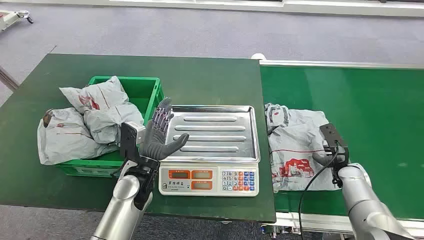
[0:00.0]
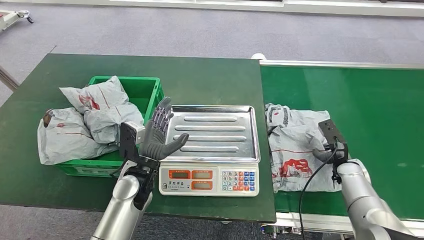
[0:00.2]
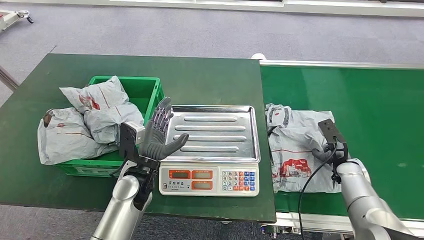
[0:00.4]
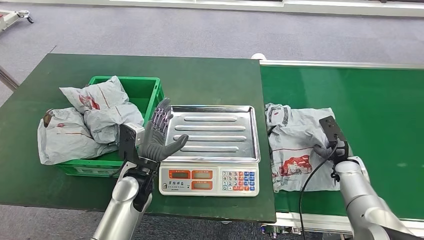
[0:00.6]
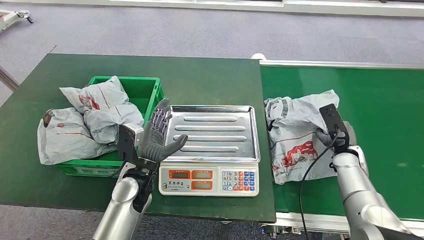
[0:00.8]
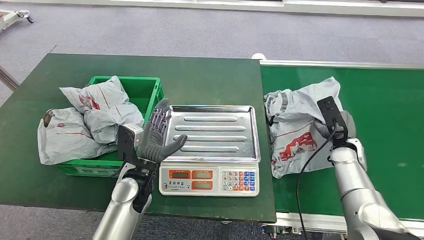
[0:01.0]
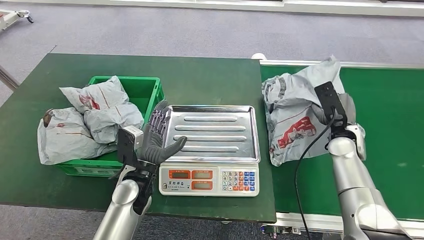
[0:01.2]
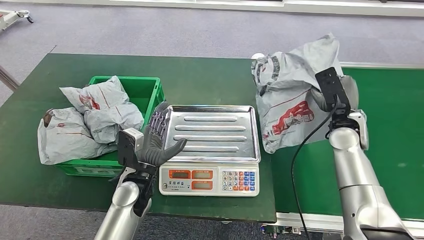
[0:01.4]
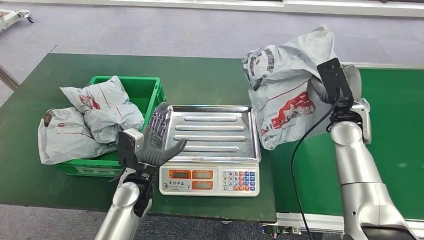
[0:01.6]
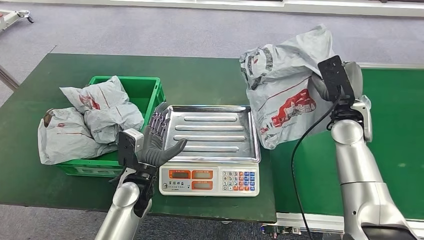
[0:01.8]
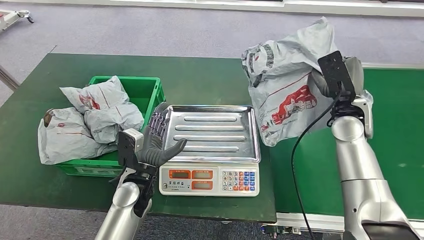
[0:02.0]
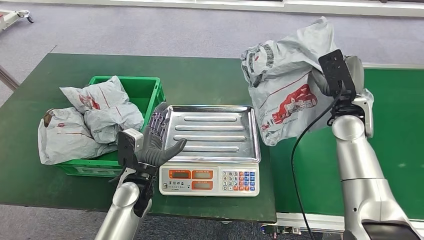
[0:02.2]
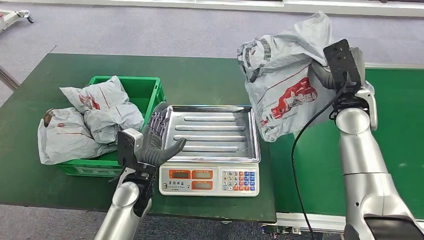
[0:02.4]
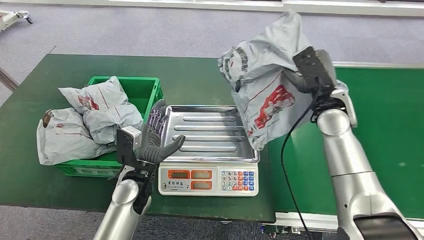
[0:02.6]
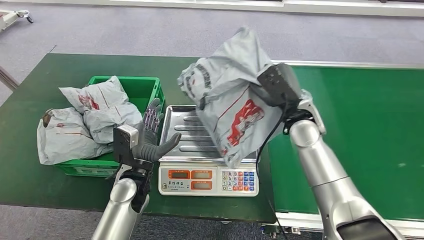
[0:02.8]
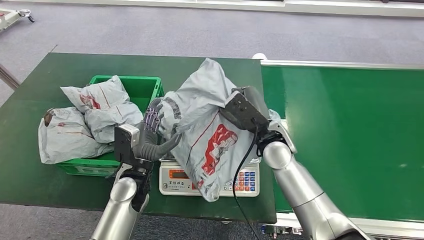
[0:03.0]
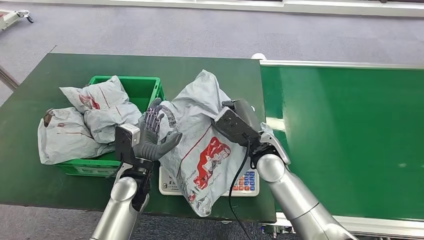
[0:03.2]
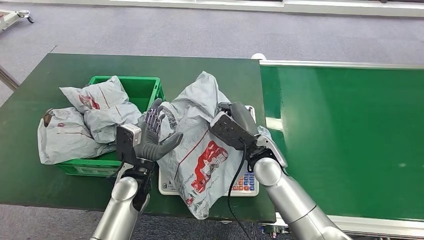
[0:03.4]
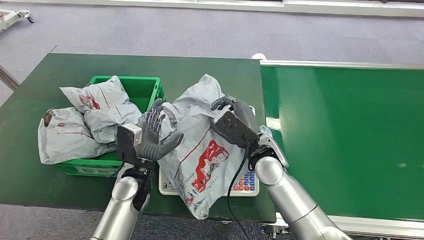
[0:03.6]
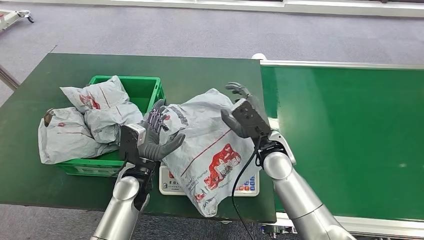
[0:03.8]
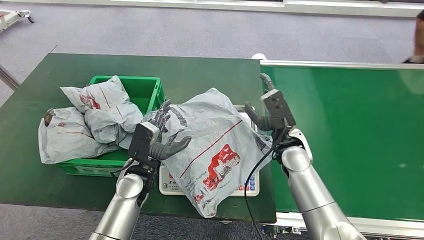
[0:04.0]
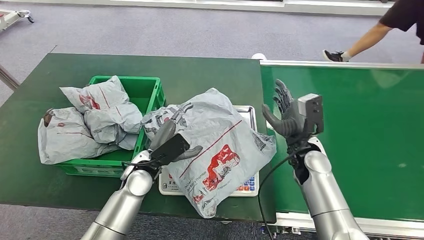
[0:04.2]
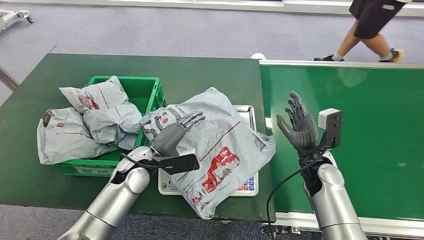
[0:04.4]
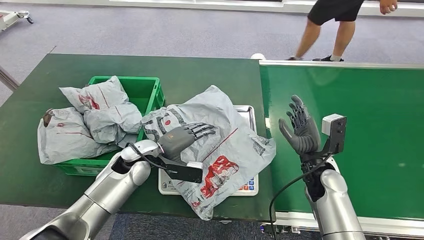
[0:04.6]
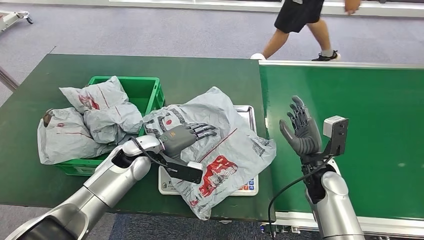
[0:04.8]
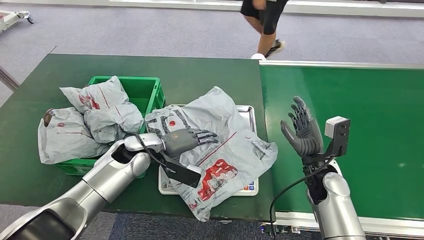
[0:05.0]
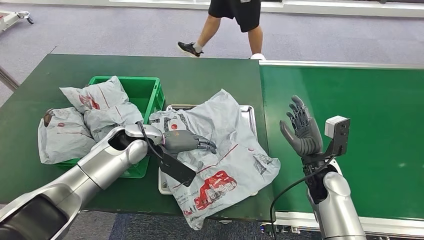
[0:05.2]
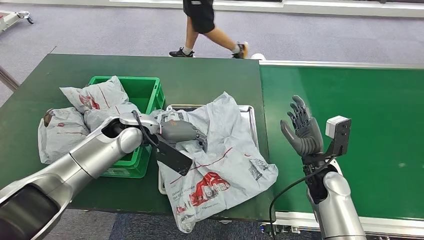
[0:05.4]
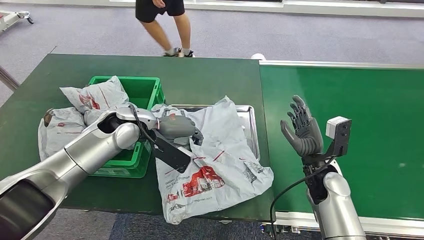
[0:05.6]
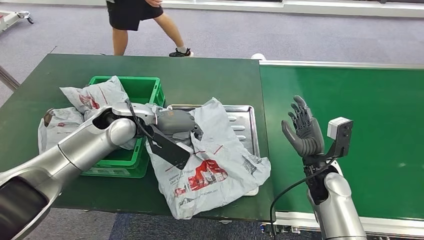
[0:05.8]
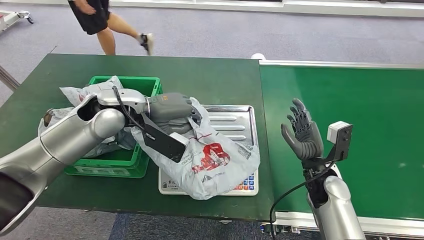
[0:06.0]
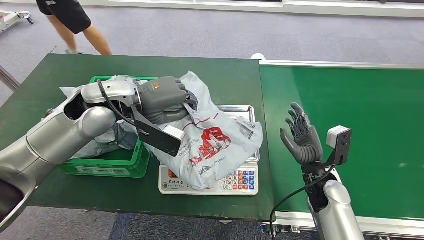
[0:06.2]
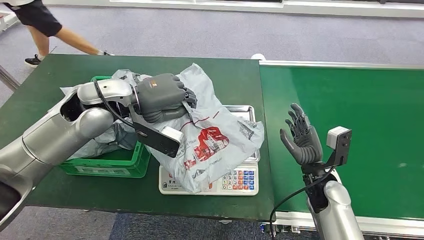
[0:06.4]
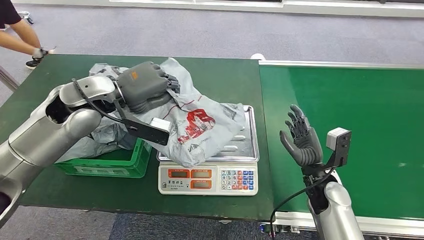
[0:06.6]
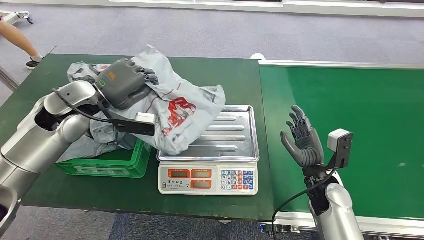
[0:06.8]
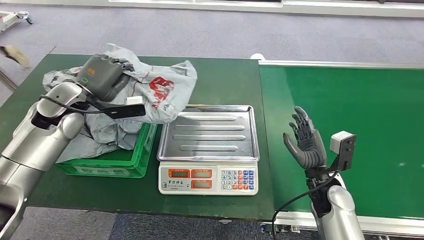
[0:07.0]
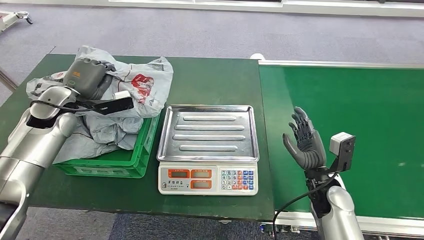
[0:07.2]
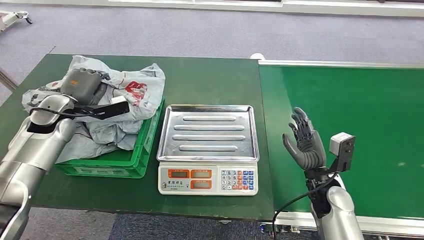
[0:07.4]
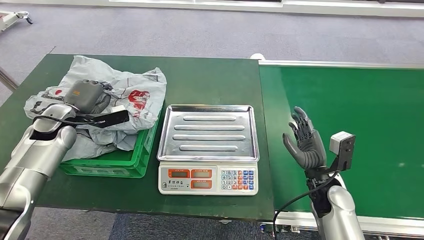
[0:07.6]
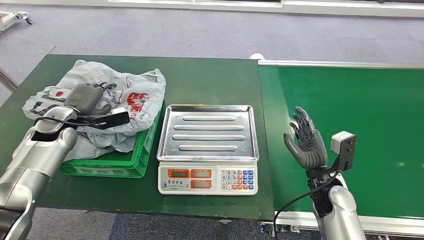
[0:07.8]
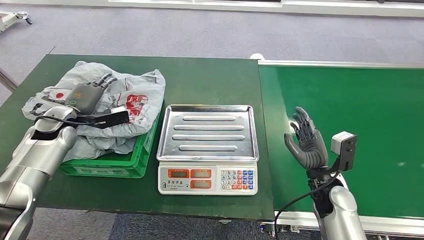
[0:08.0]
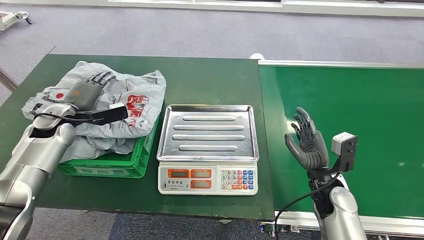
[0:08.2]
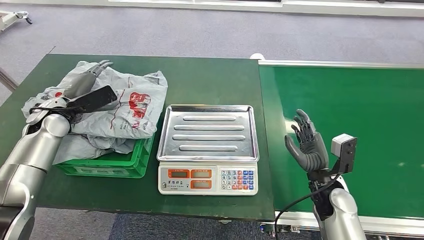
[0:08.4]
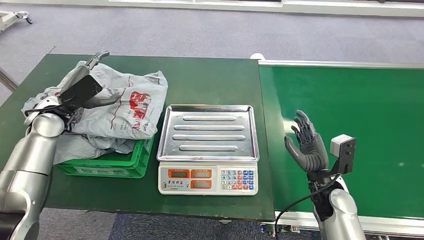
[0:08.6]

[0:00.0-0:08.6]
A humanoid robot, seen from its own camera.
Task of the whole recording: Weigh the package on the weighing device and place it in the left basket.
Step, 0:00.0 to 0:01.2: Pick up the package from the conveyor belt.
Step, 0:01.4 to 0:04.2: Place the package onto the inbound machine.
Step, 0:04.4 to 0:06.6: Pick up the package from the inbound machine.
Step, 0:06.8 to 0:08.6: Place the package into the parcel locker.

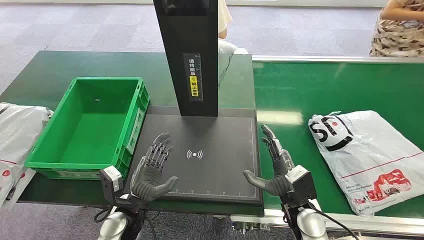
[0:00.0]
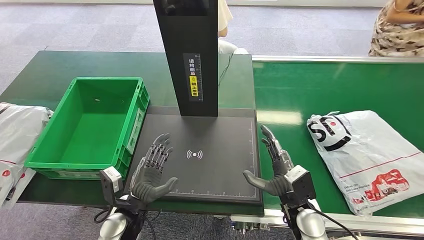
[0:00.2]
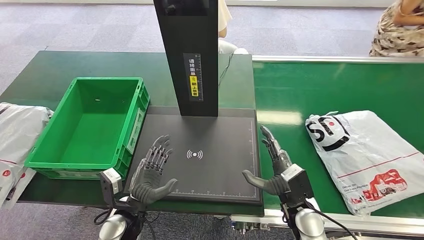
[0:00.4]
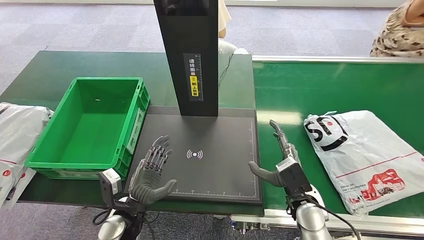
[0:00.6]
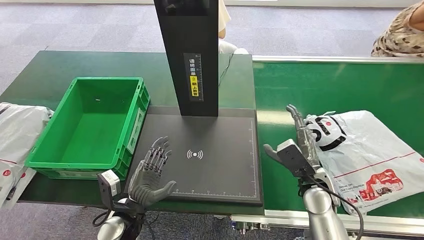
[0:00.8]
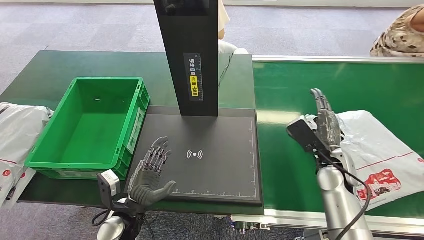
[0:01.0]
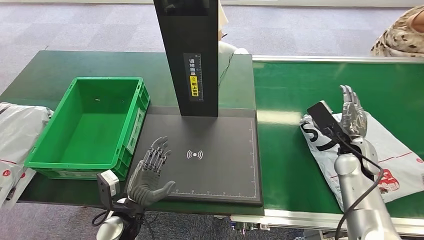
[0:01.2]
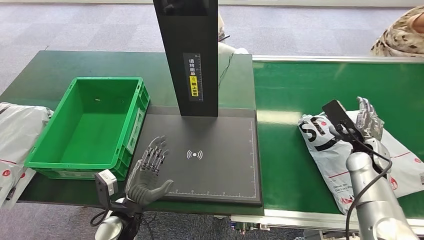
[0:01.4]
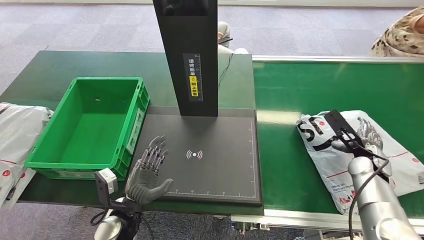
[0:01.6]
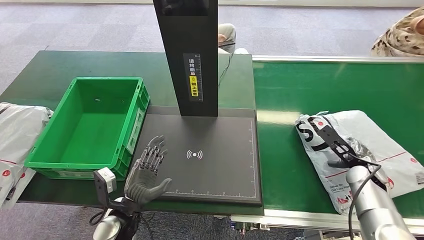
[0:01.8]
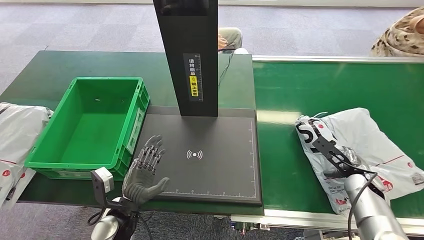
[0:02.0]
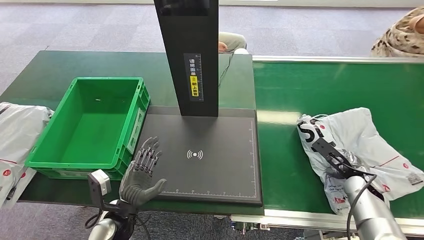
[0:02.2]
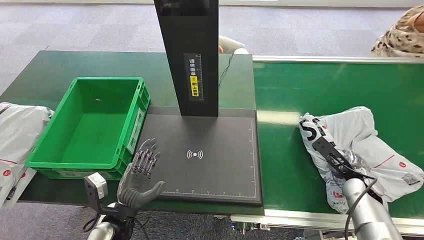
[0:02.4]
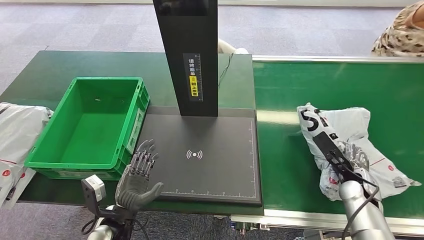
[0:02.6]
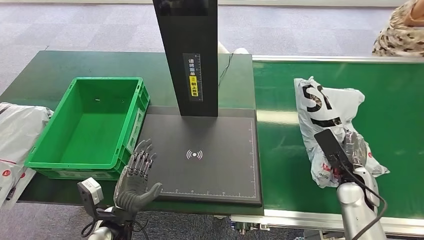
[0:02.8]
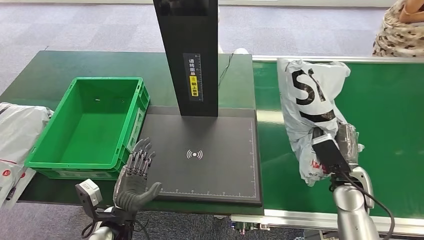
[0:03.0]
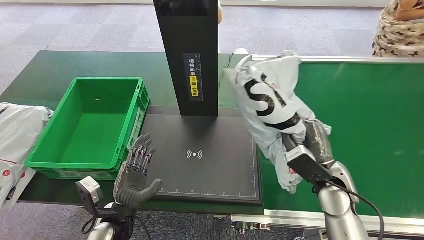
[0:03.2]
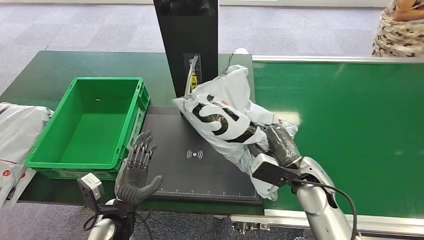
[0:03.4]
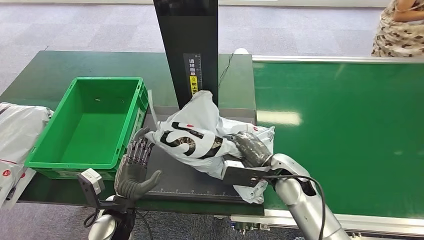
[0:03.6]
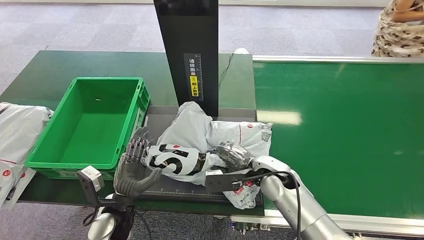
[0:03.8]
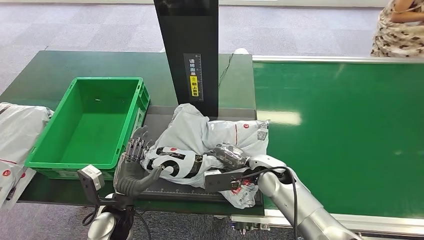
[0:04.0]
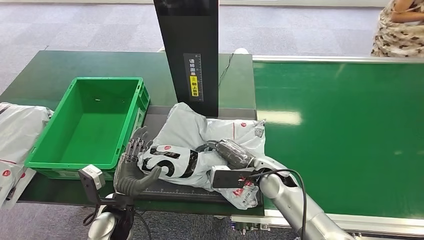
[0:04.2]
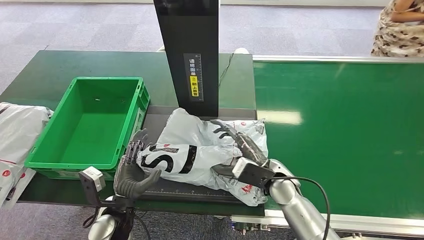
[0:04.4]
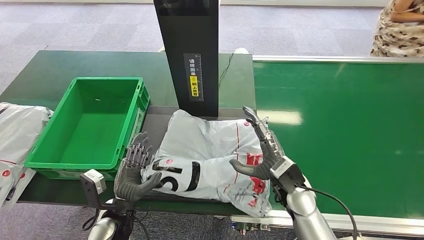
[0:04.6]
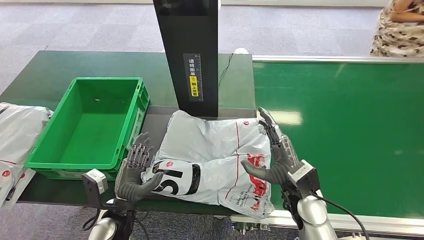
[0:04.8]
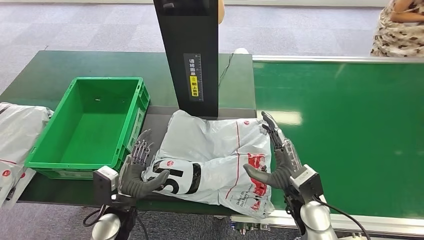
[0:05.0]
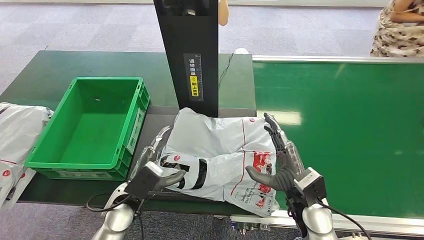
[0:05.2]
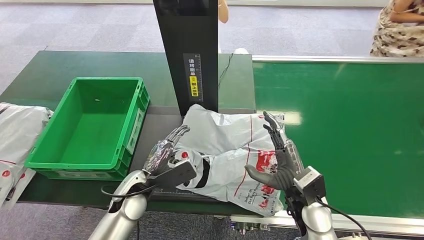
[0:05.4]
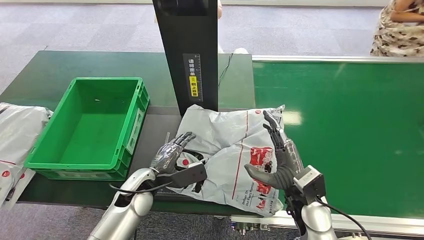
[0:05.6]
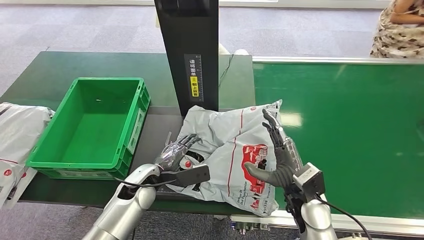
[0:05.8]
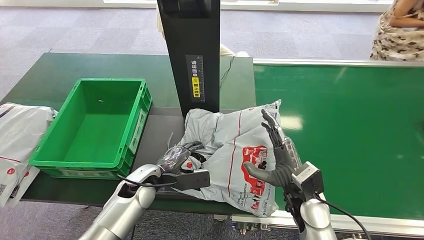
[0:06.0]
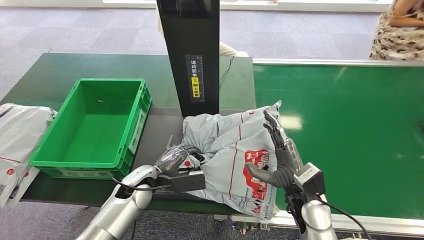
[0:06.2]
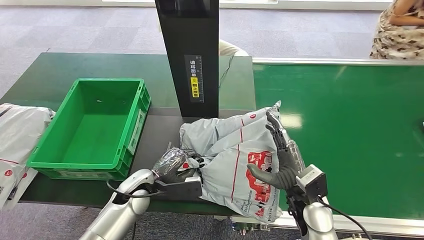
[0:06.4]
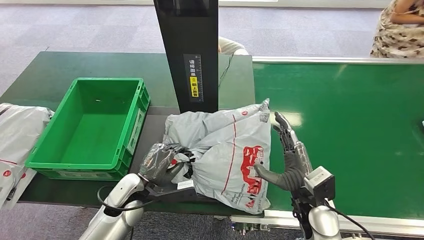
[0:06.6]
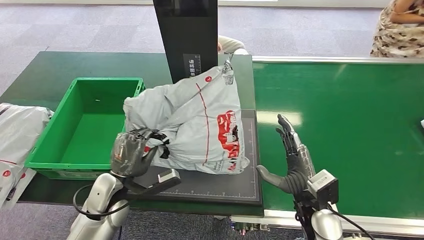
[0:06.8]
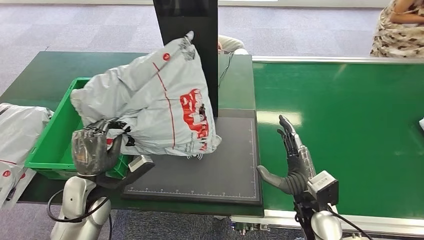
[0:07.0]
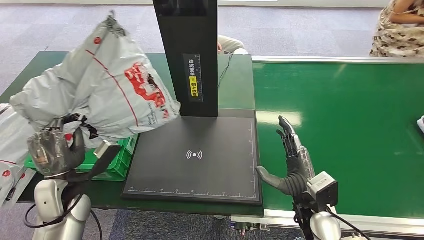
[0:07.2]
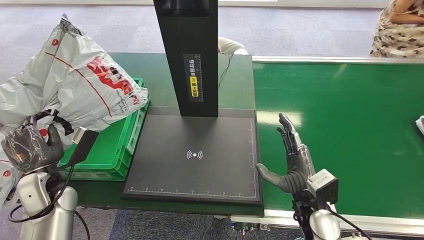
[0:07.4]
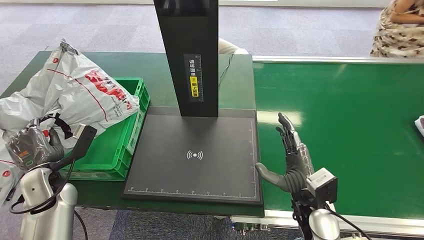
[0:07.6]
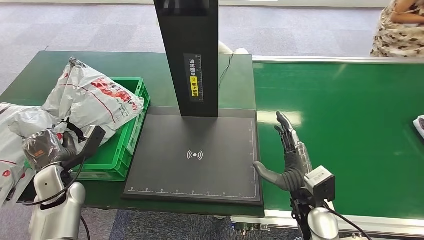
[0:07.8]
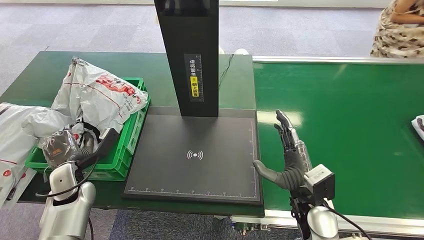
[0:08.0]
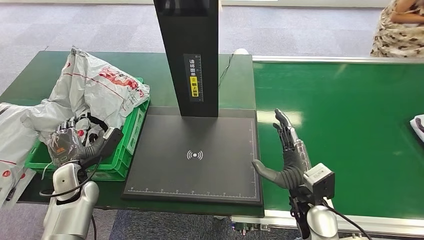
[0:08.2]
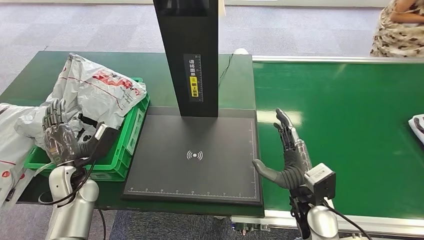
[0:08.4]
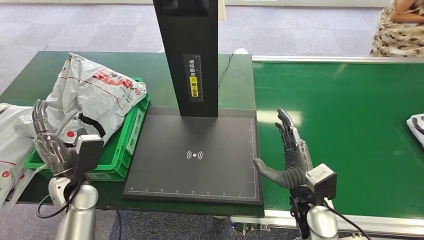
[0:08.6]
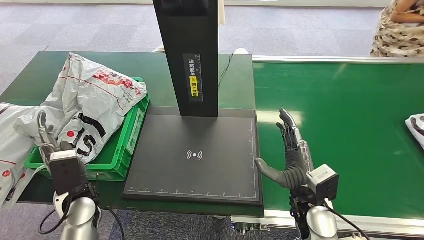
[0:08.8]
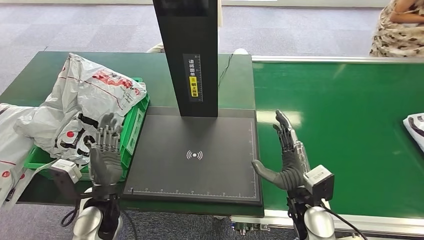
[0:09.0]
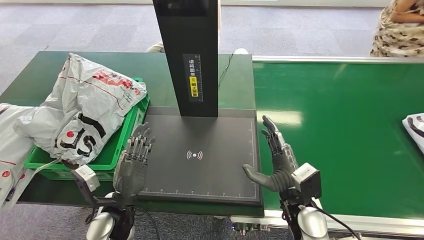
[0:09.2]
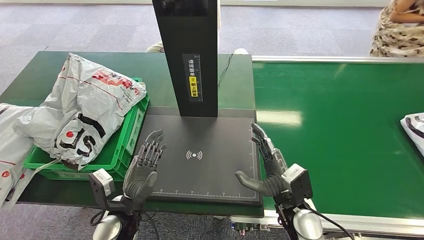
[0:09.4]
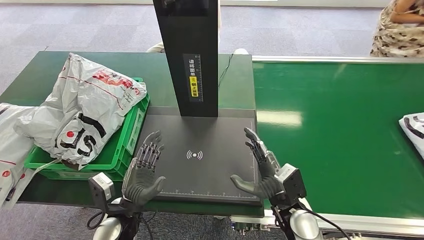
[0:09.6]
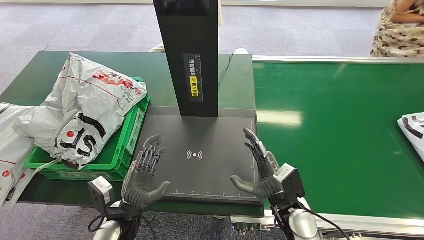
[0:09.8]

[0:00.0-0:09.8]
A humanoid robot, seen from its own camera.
Task of the whole recording: Weigh the package on the weighing device and place it in the left basket.
Step, 0:00.0 to 0:03.0: Pick up the package from the conveyor belt.
Step, 0:03.2 to 0:04.8: Place the package onto the inbound machine.
Step, 0:05.0 to 0:07.0: Pick up the package from the inbound machine.
Step, 0:07.2 to 0:09.8: Place the package into the parcel locker.
0:01.4 to 0:02.8: The right hand travels backward by about 5 cm.
0:04.2 to 0:05.6: The right hand heads backward and to the right, covering about 10 cm; the left hand moves forward, some 5 cm.
0:08.4 to 0:09.8: The right hand shifts by about 5 cm; the left hand is displaced to the right and backward by approximately 15 cm.
